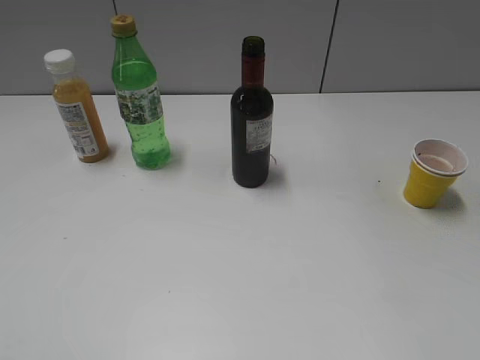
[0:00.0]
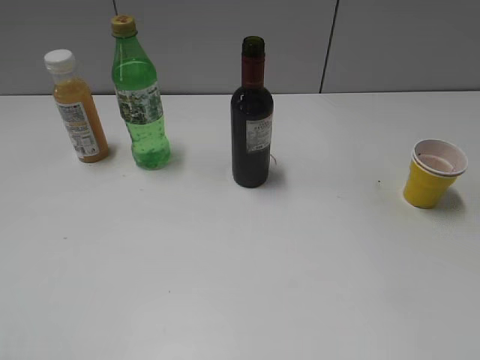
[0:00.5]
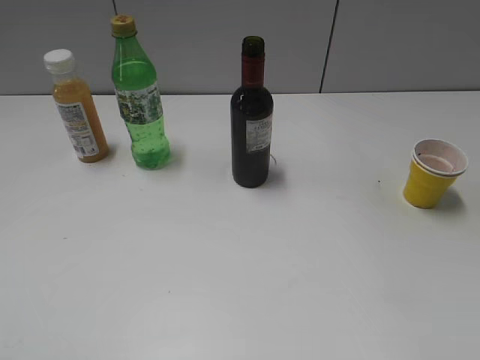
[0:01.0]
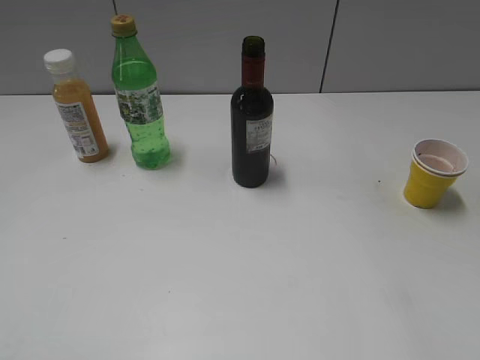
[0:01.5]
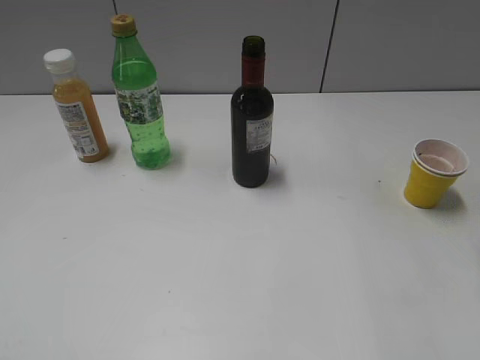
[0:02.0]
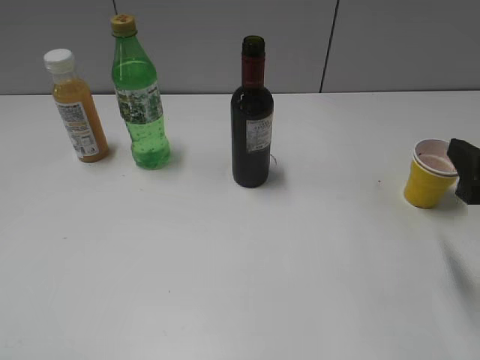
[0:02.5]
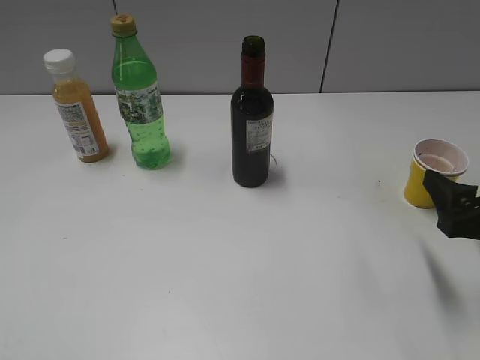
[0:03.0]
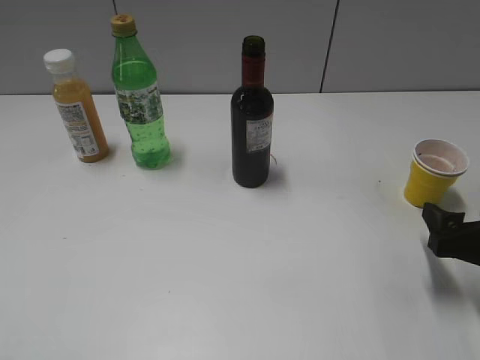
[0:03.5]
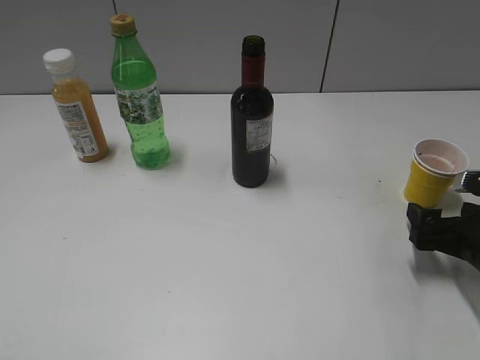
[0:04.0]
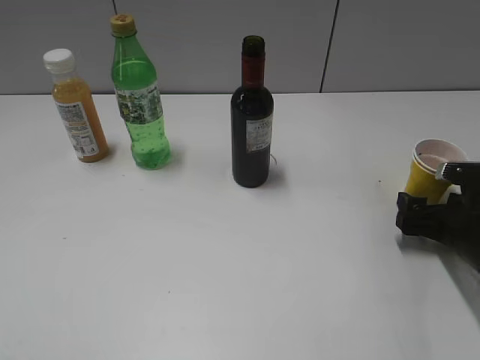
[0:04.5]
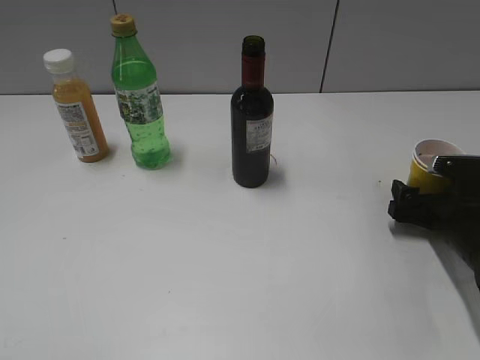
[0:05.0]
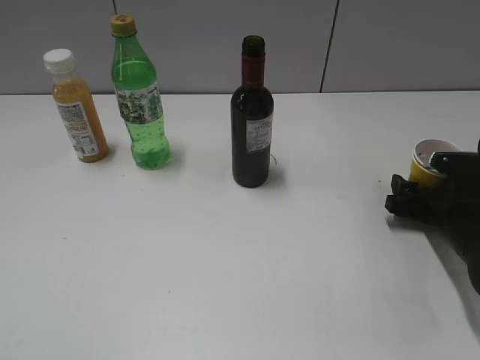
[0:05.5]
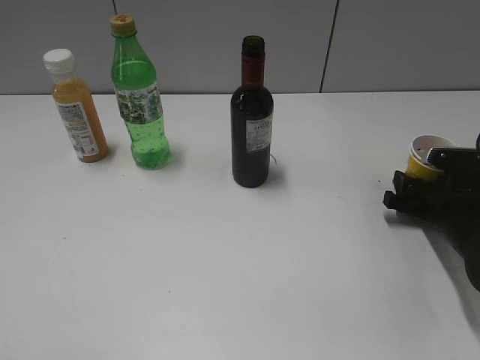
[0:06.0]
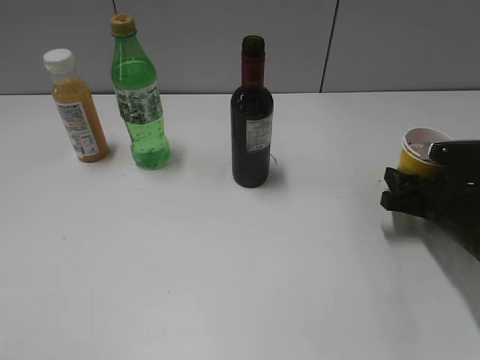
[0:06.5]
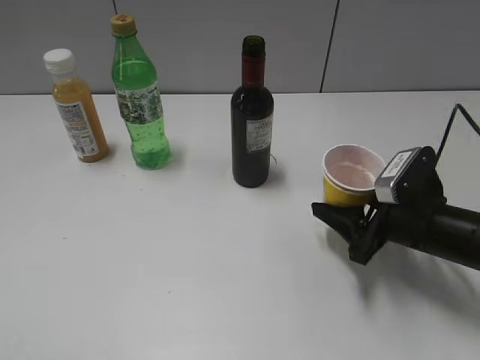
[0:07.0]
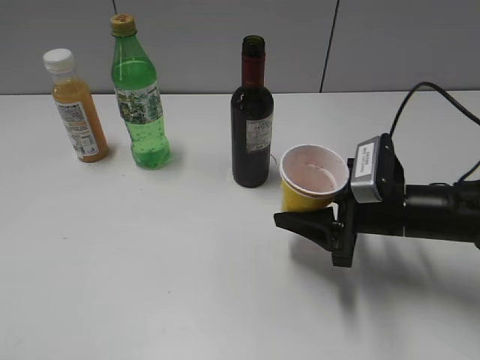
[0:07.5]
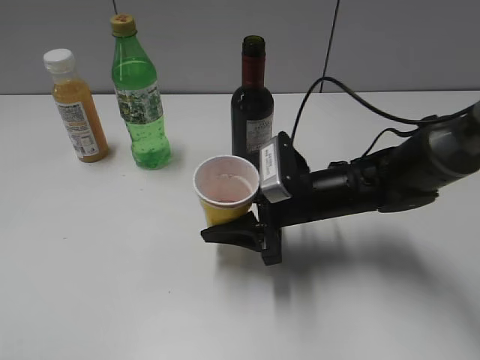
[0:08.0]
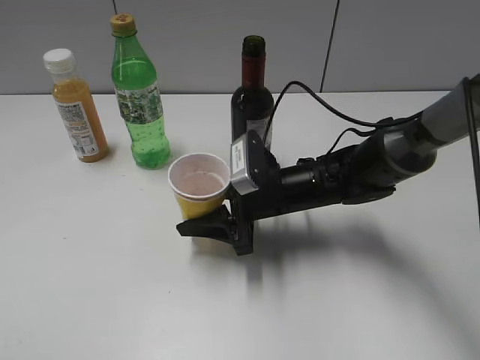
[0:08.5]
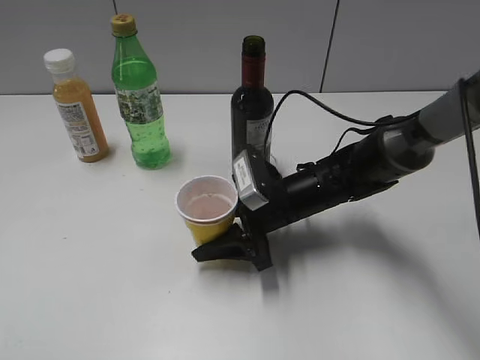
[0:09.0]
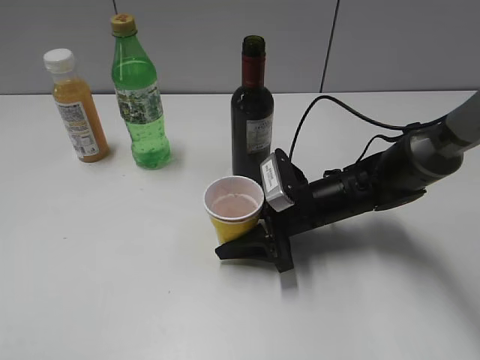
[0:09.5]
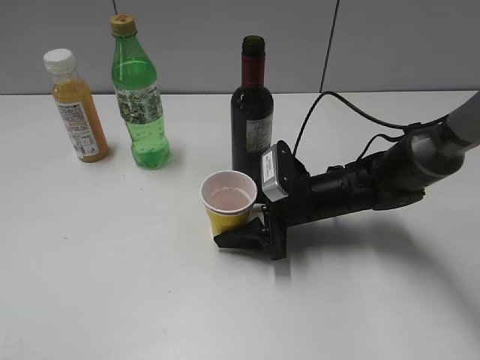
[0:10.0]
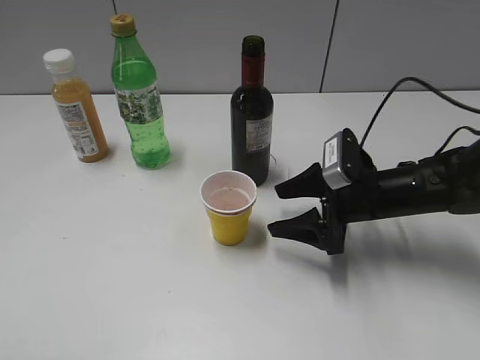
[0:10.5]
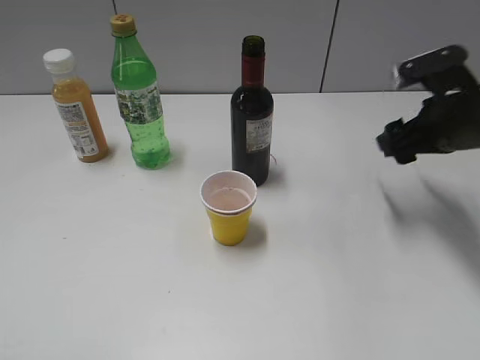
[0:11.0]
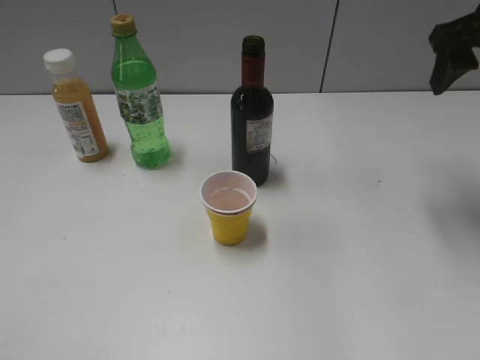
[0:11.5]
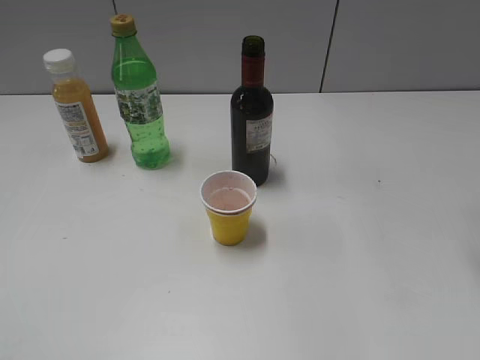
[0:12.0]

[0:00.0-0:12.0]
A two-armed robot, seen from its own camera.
Step, 1.0 to 6.0 s: Grasp the yellow paper cup with right gripper.
Step, 6.5 to 10.0 s: Place the yellow paper cup on the table with right gripper.
2.0 to 4.0 s: The right gripper heads downward, covering roughly 15 cm, and opens its fingers.
4.0 to 6.0 s: The right gripper goes some 5 cm forward, and closes up.
6.0 to 8.0 s: The right gripper travels to the left by some 20 cm.
8.0 to 10.0 s: The right gripper moves about 5 cm, and opens its fingers.
10.0 to 12.0 s: The right gripper travels upward and to the right by roughly 35 cm.

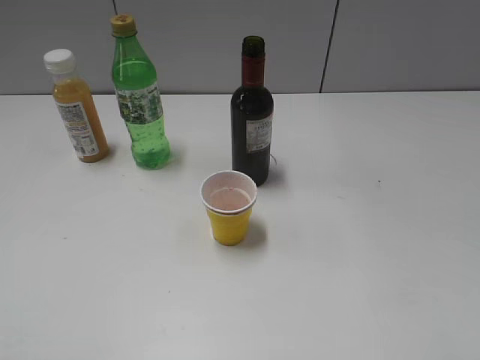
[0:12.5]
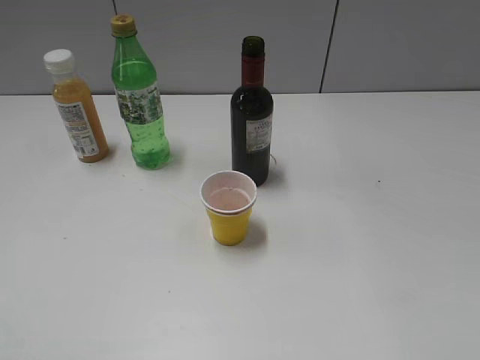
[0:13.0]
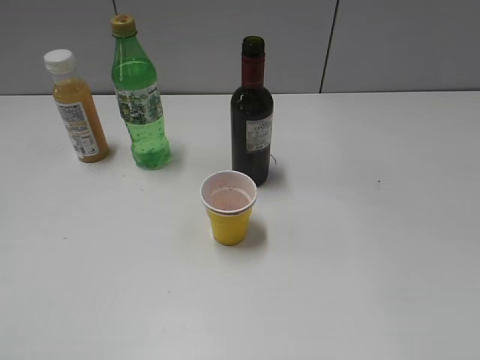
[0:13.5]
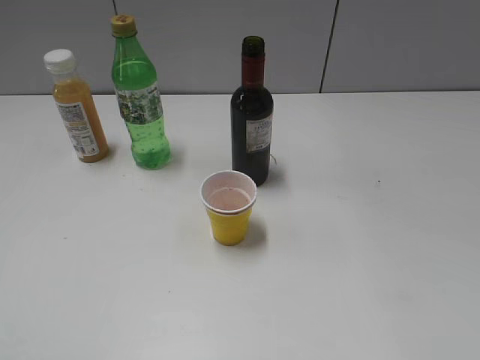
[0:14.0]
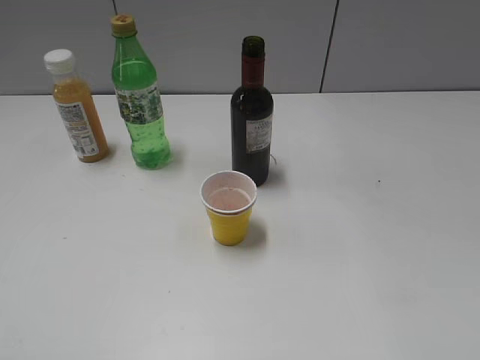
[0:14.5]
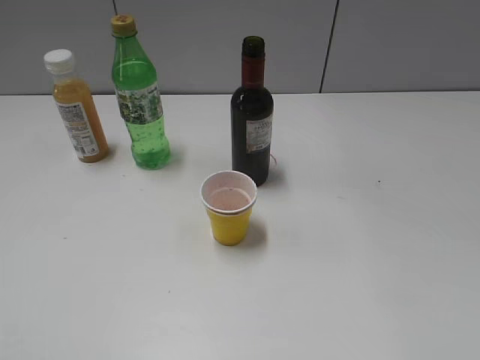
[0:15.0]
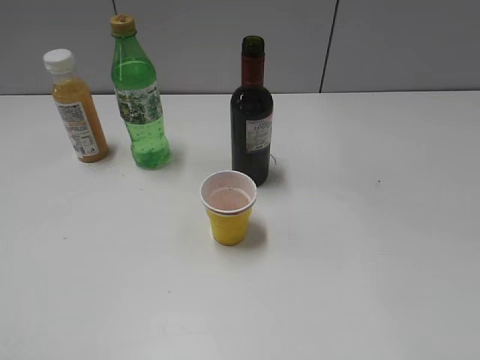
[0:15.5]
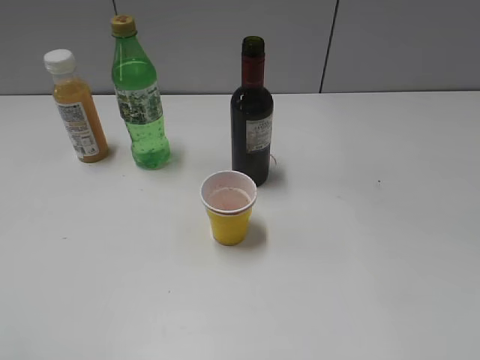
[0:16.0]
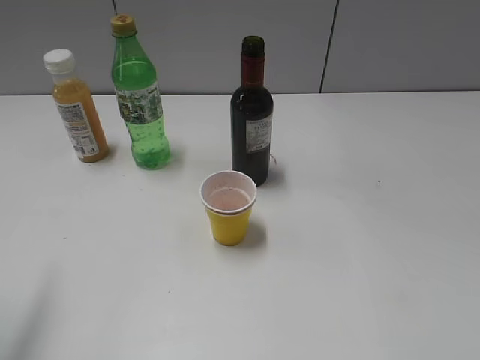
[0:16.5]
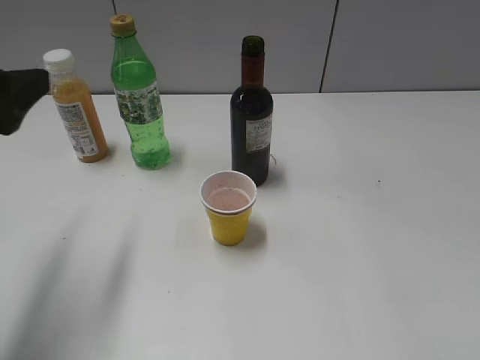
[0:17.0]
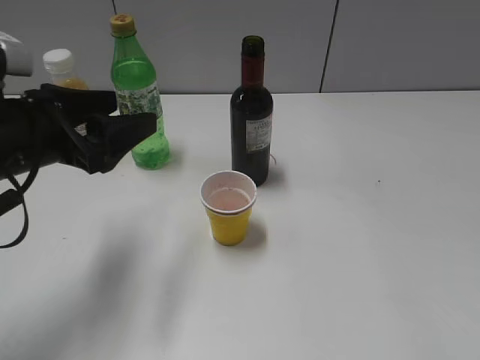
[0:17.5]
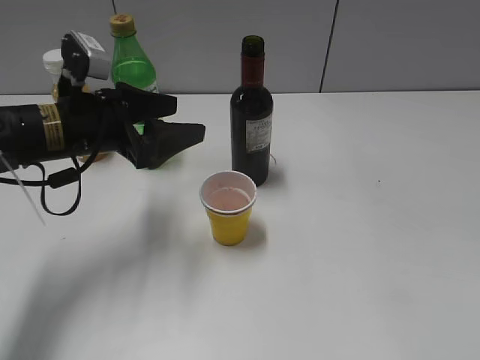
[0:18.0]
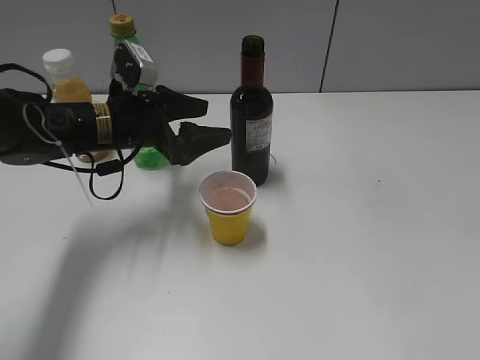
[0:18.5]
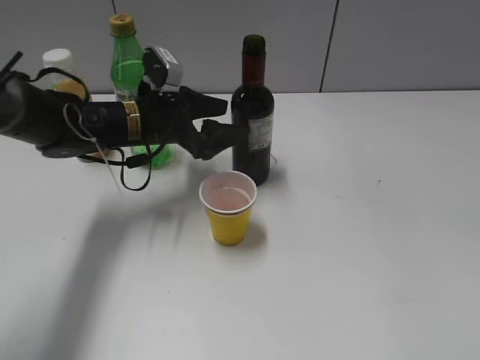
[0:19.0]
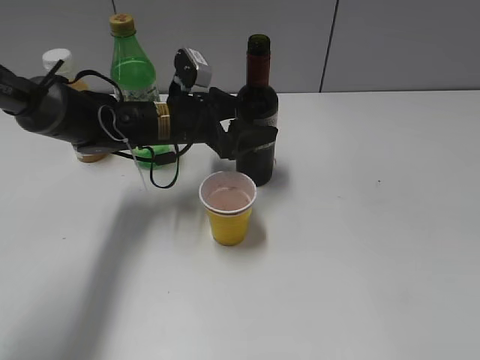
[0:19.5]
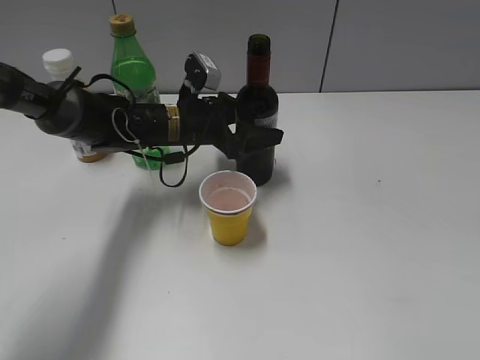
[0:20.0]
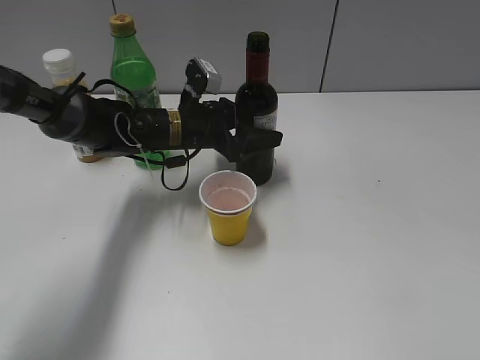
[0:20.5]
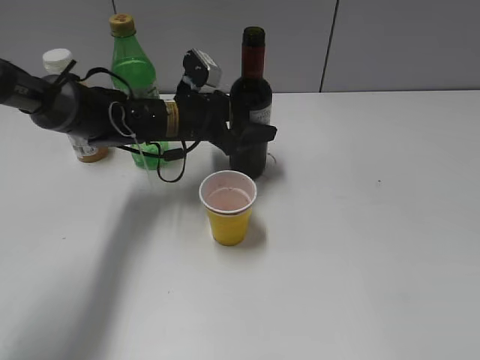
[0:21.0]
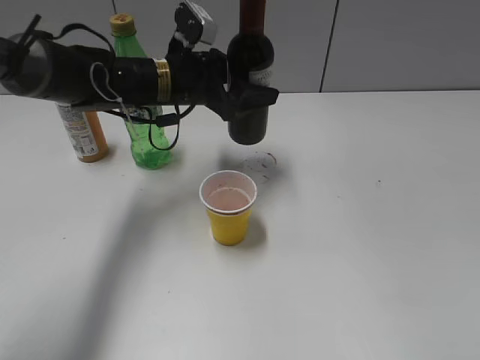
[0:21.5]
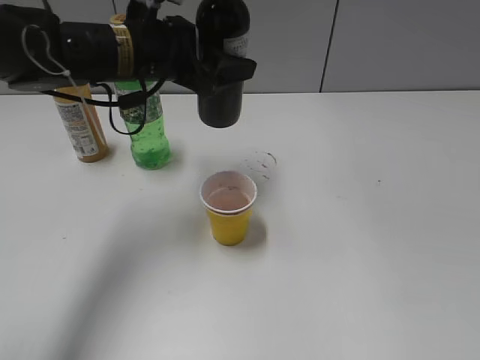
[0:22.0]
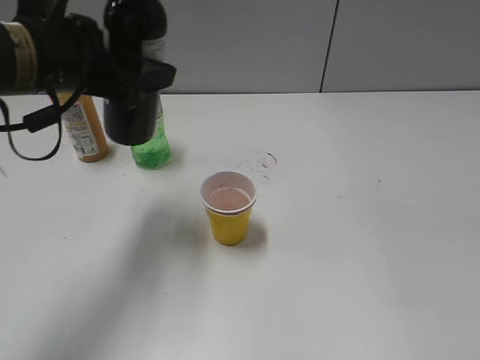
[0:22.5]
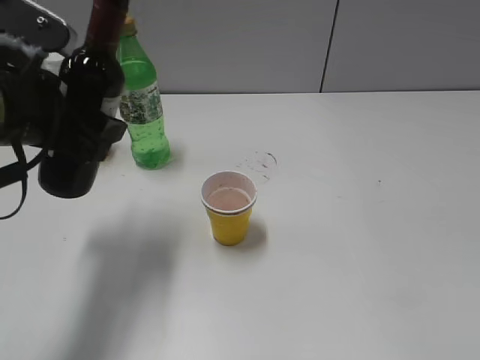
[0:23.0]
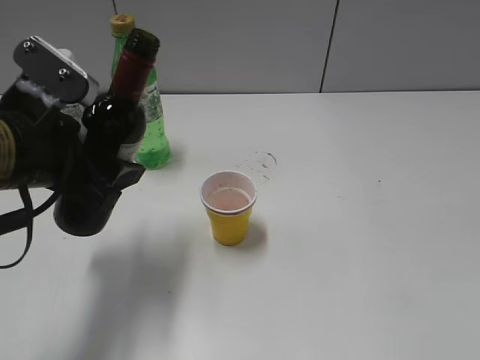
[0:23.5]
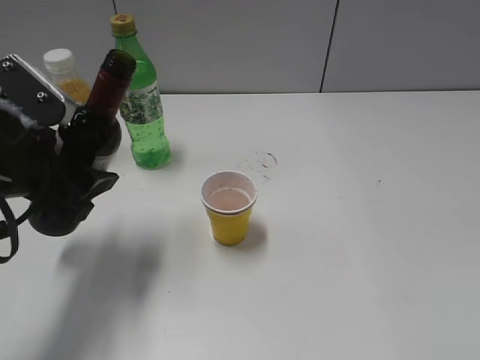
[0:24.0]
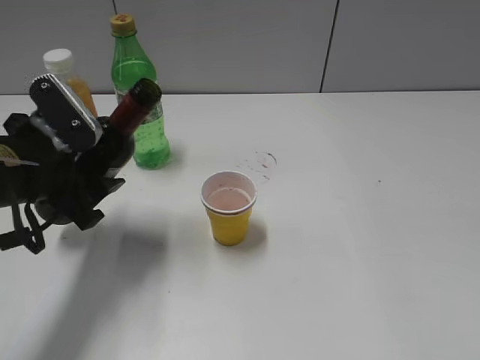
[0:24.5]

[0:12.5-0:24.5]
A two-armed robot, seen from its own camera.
Step, 12.5 to 20.5 s: Grasp the bottle with red wine with left gripper.
14.5 to 16.5 s: The left gripper travels forward by about 15 cm, and opens.
16.5 to 18.5 s: The left gripper goes roughly 30 cm forward, to the right and downward.
18.5 to 20.5 s: The left gripper moves to the right and forward, about 10 cm, and closes.
20.5 to 22.5 s: The left gripper travels upward, backward and to the left by some 25 cm.
22.5 to 24.5 s: The left gripper moves downward, roughly 10 cm.

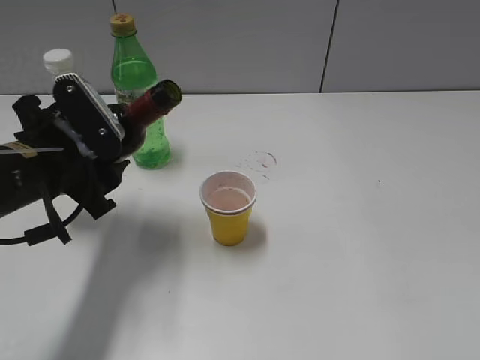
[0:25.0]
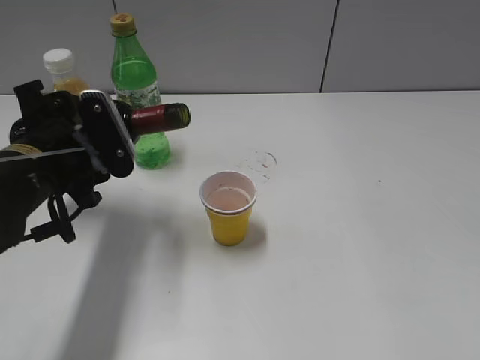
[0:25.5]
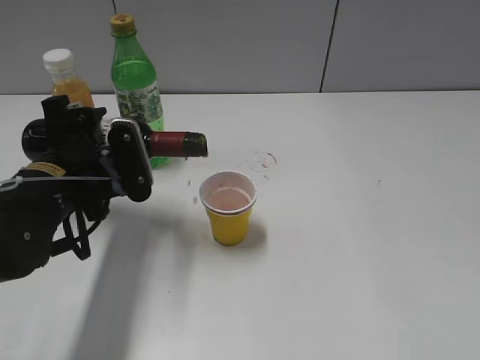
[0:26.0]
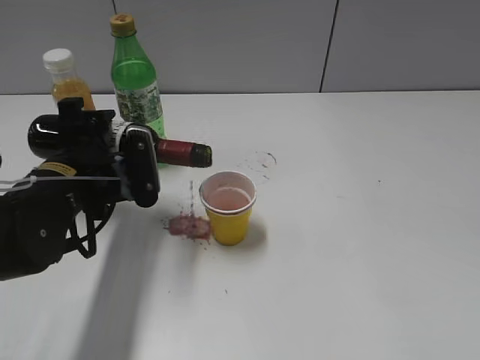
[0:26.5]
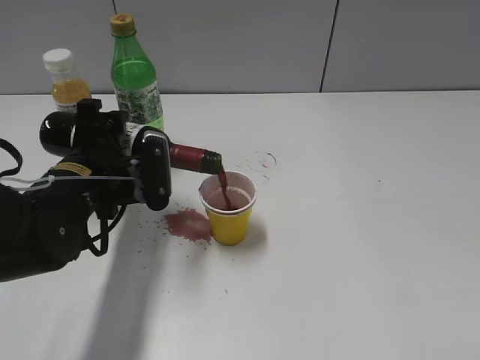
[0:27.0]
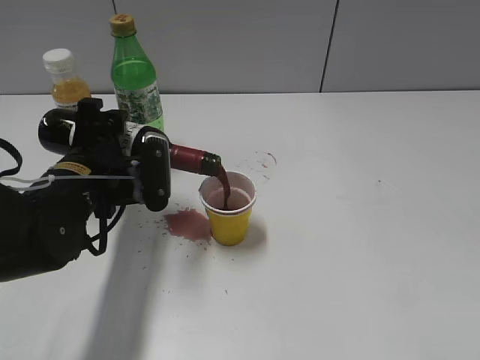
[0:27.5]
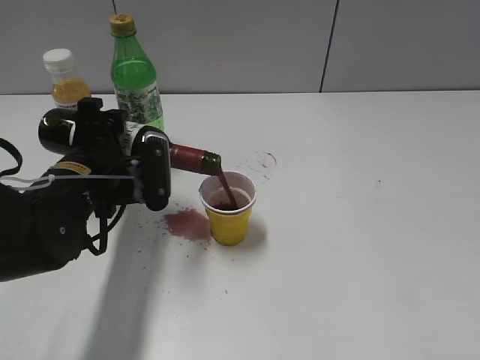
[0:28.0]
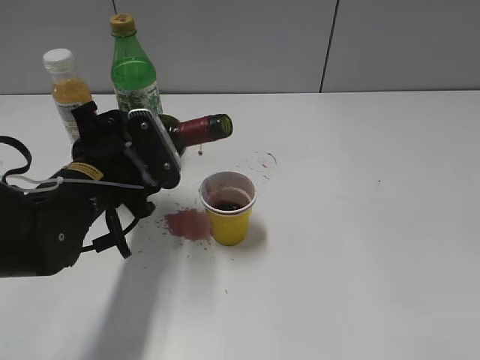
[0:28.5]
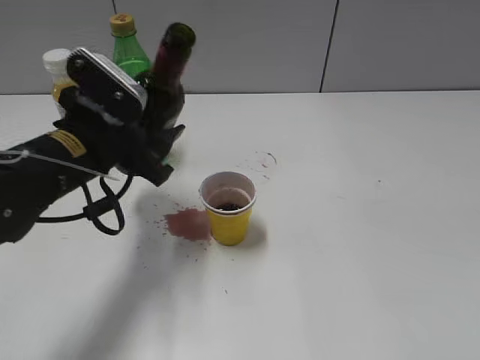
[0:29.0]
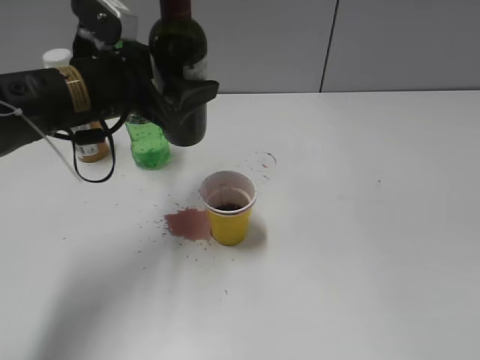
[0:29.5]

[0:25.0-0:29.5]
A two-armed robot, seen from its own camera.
Step, 25.0 to 28.5 s: Pour the red wine from bottle to cup with left gripper.
25.0 to 27.0 s: The left gripper moves roughly 5 cm.
27.0 to 29.5 s: The left gripper shifts approximately 10 cm upward and forward.
